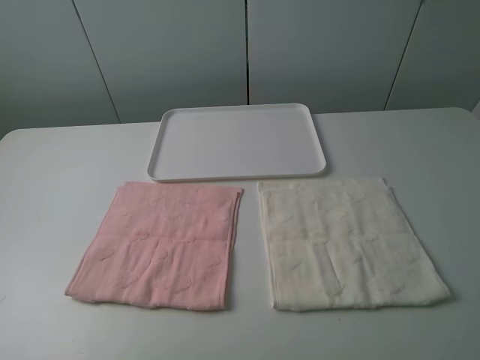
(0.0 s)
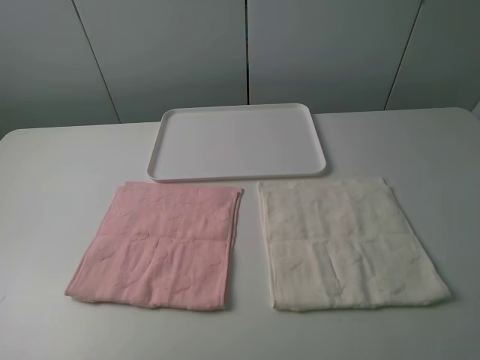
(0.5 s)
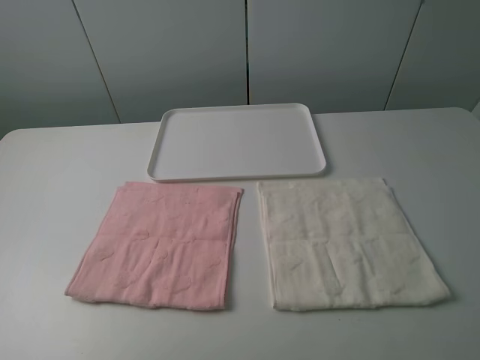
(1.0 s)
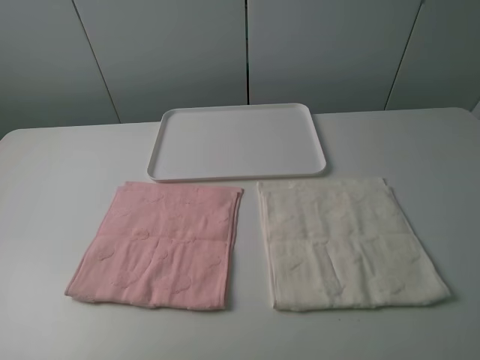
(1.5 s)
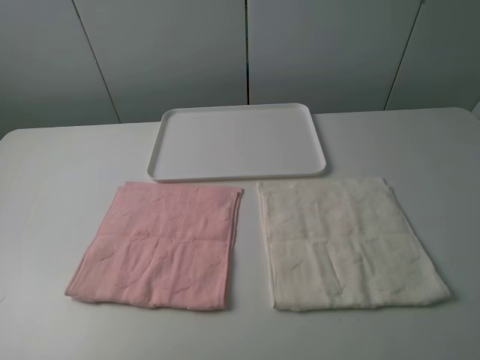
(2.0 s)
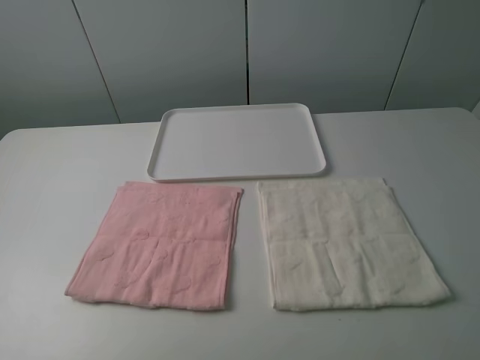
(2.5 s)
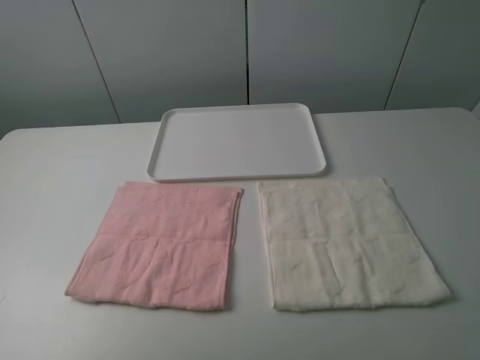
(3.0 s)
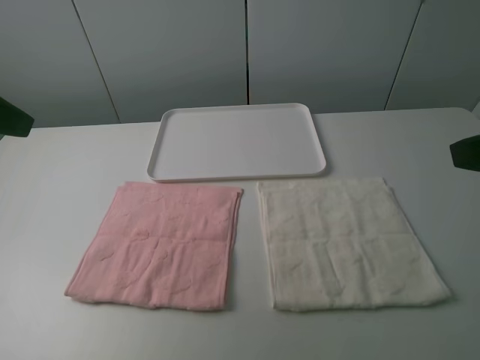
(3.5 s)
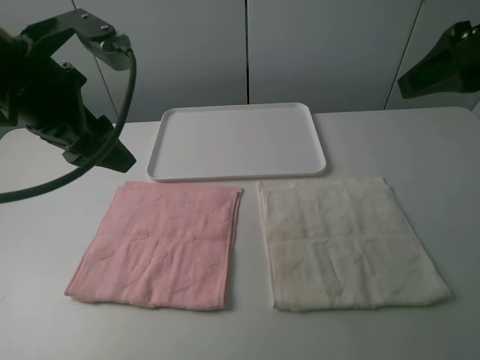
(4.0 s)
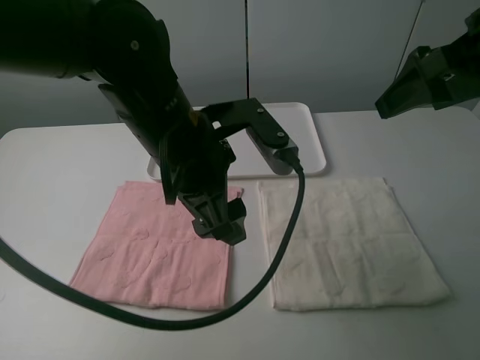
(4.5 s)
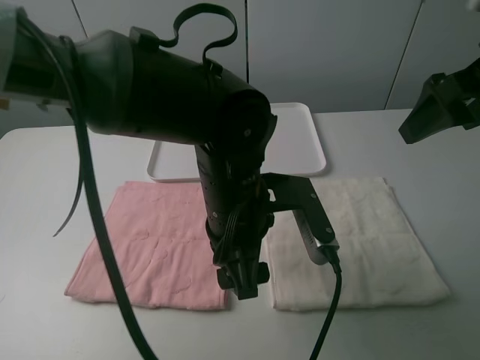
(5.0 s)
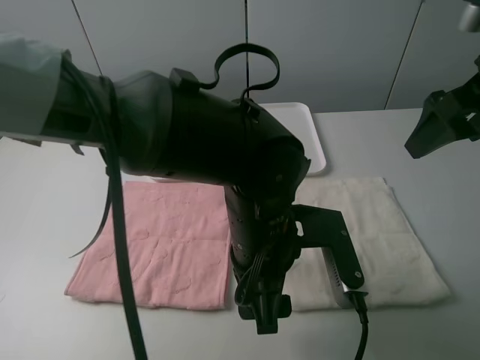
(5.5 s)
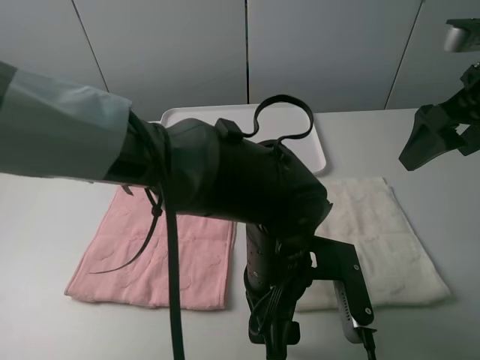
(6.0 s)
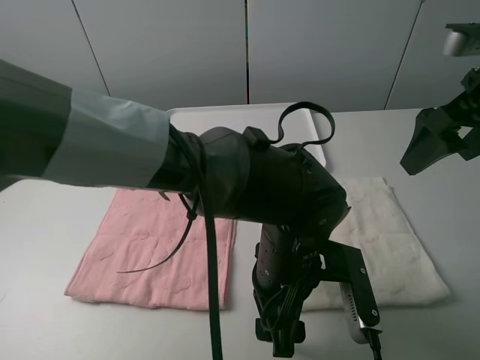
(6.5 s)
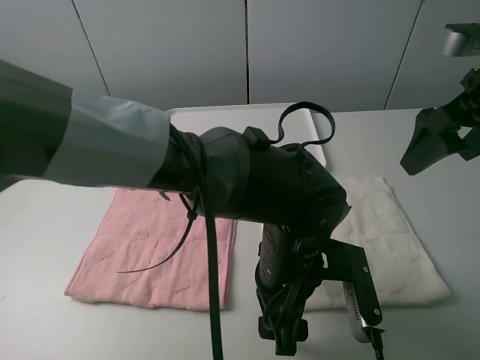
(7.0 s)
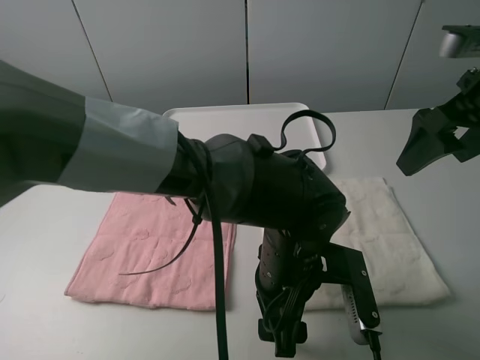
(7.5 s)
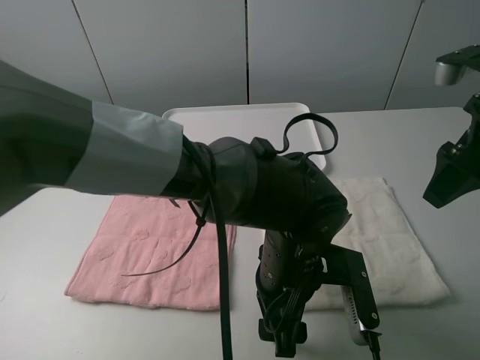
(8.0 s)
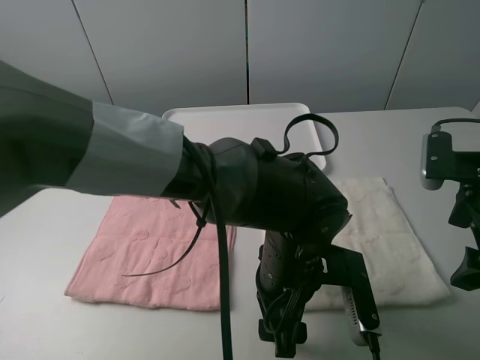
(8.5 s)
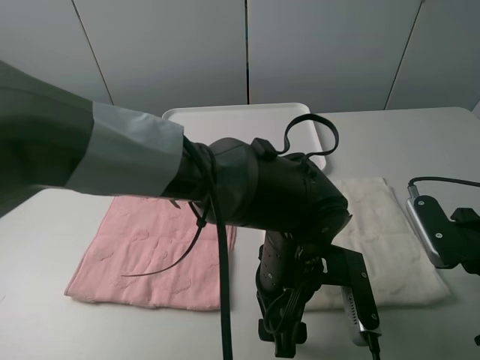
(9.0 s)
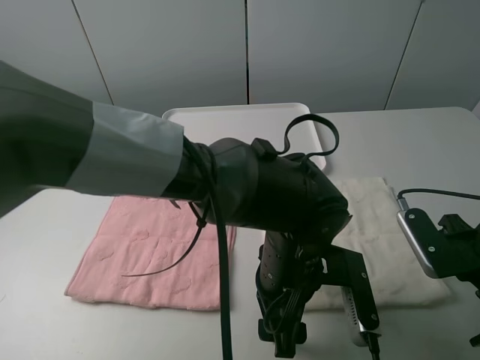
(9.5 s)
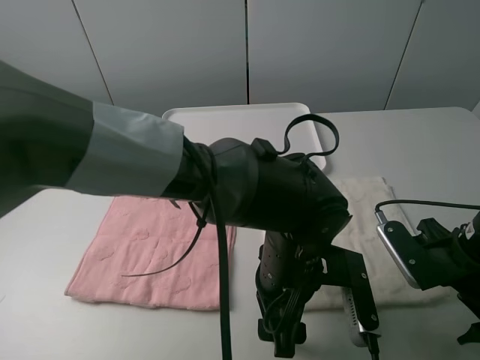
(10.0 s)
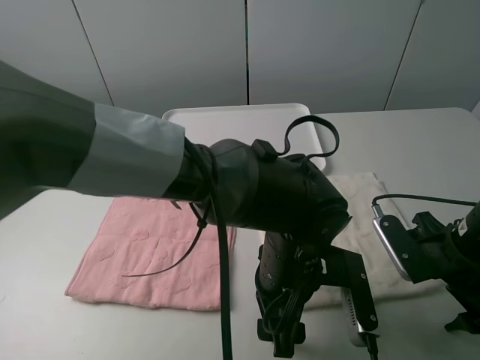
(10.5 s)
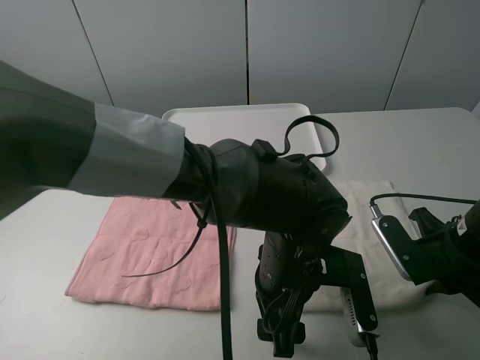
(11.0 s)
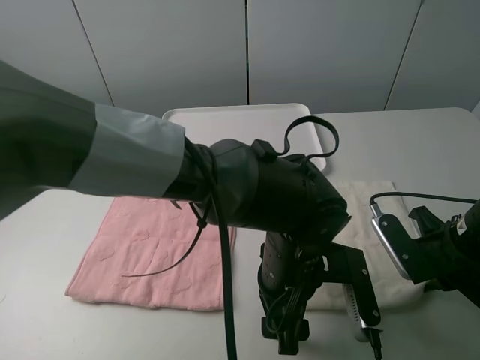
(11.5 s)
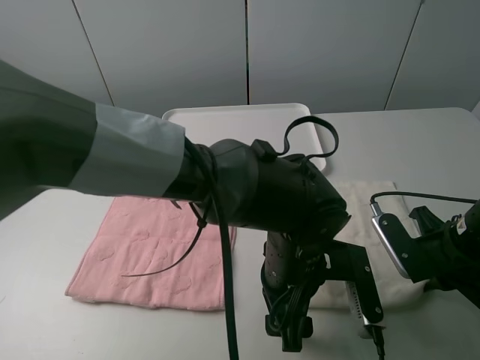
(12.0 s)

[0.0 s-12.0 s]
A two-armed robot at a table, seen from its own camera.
Task of the whole recording: fold one of the towels by two grippers and place it on the tray,then fold another towel by two grippers and place it on the folded towel.
0.0 to 2.0 s: The two grippers keep their place.
2.0 to 4.0 s: The left gripper shifts approximately 30 cm forward and to the right. Meanwhile the right gripper goes some 20 cm forward.
4.0 to 6.0 s: The right gripper is displaced downward by roughly 5 cm. The left gripper moves to the right and downward, about 30 cm.
8.0 to 10.0 s: The right gripper is displaced downward and backward by roughly 15 cm.
10.0 to 12.0 s: The right gripper closes up.

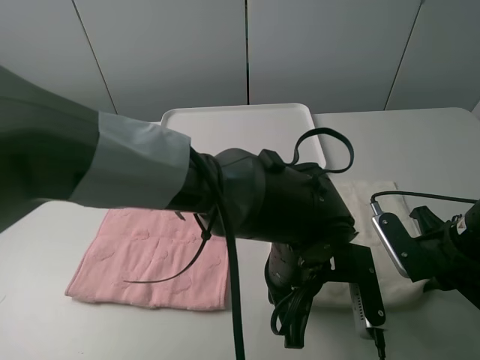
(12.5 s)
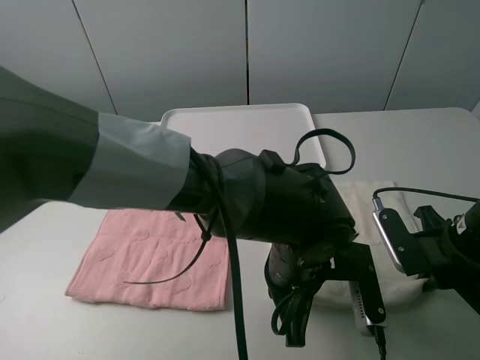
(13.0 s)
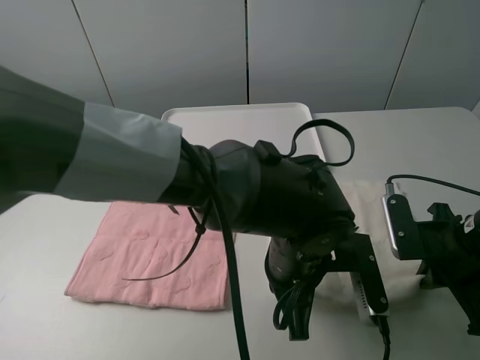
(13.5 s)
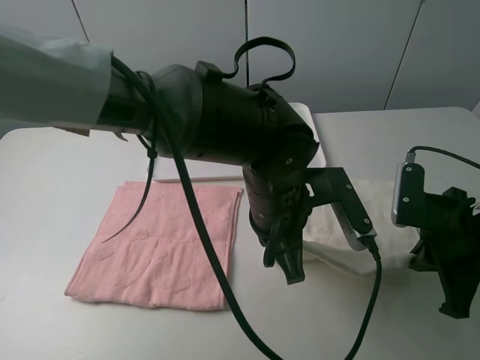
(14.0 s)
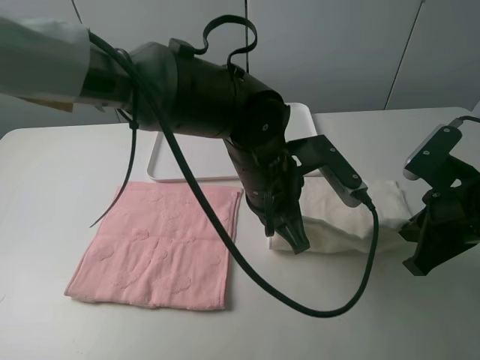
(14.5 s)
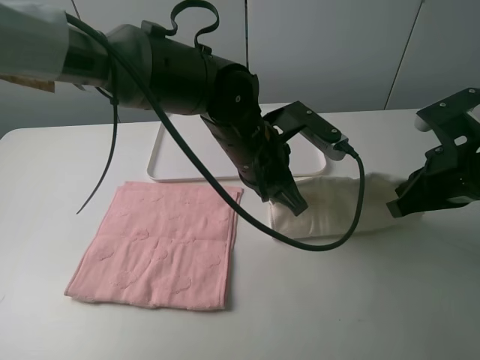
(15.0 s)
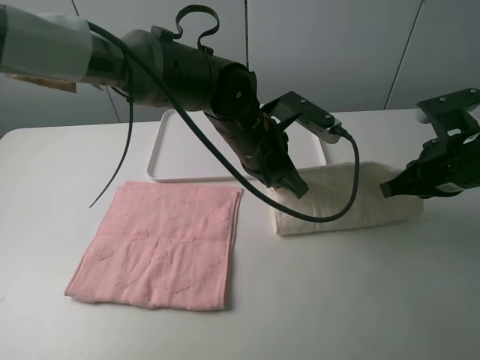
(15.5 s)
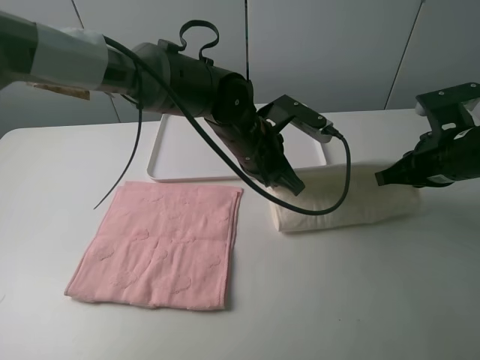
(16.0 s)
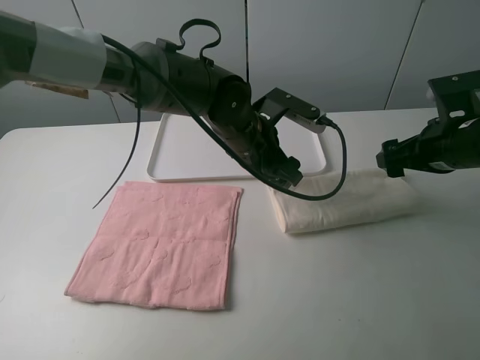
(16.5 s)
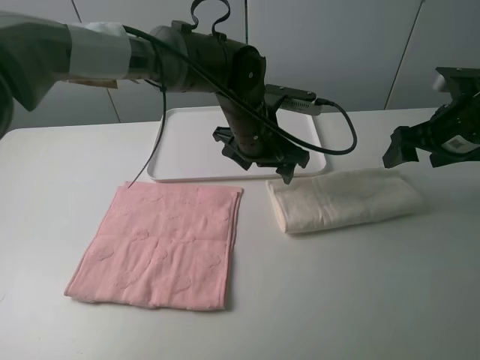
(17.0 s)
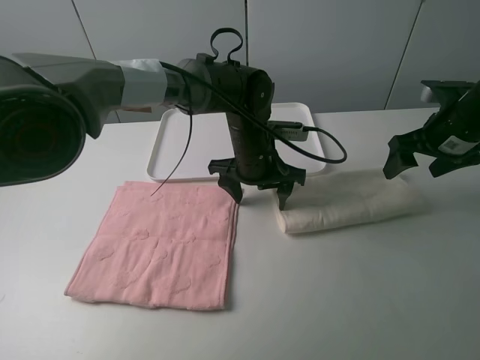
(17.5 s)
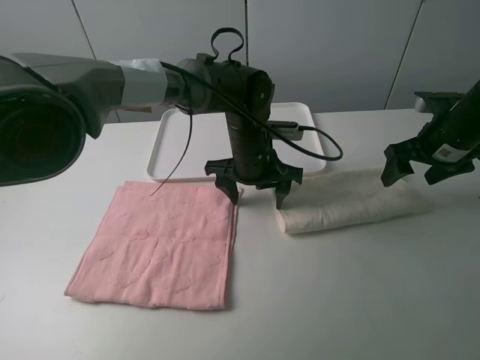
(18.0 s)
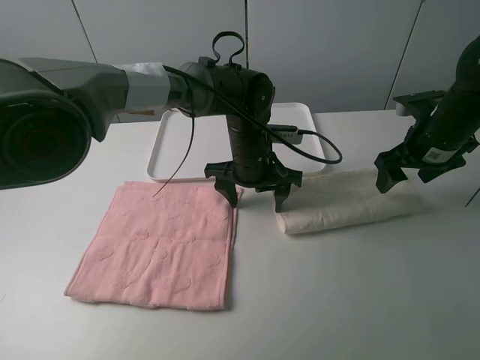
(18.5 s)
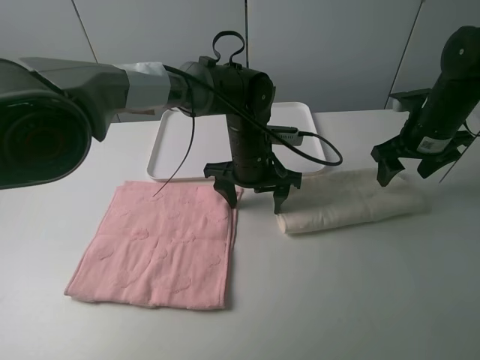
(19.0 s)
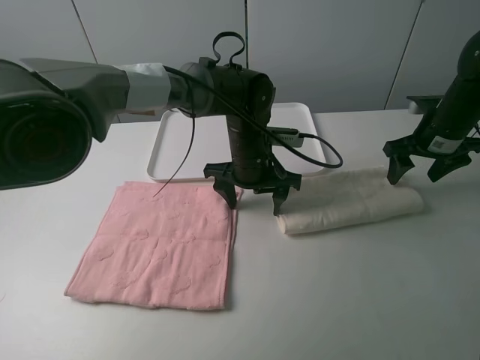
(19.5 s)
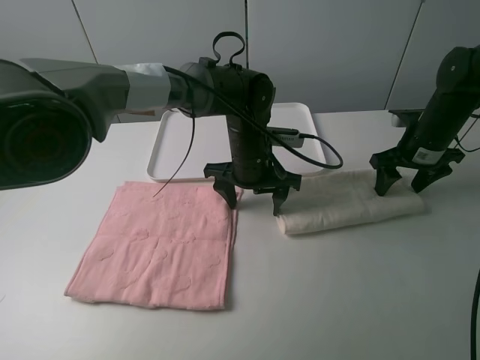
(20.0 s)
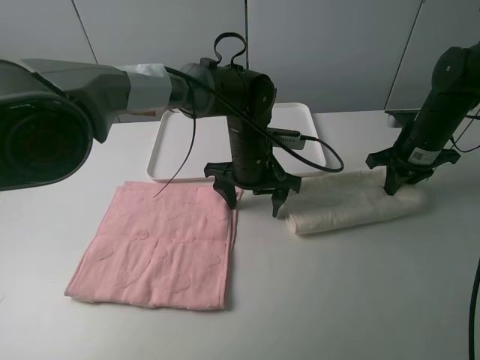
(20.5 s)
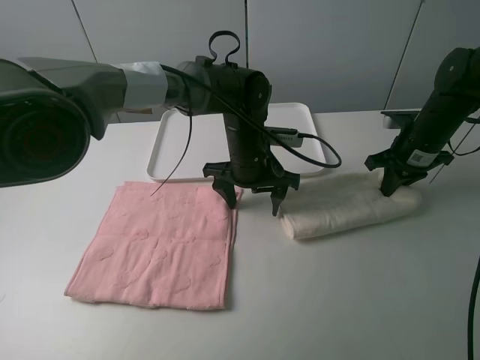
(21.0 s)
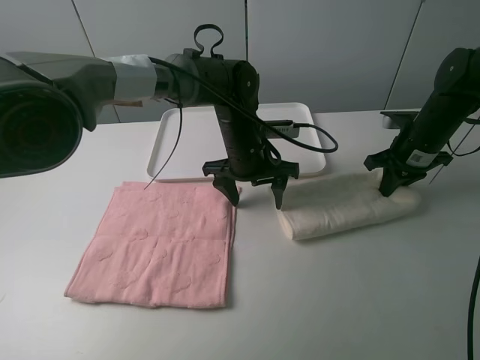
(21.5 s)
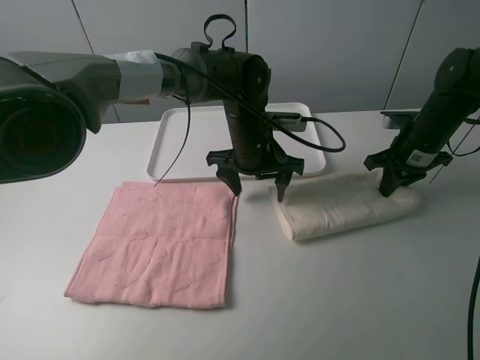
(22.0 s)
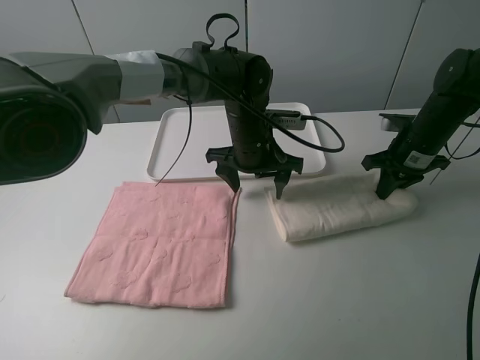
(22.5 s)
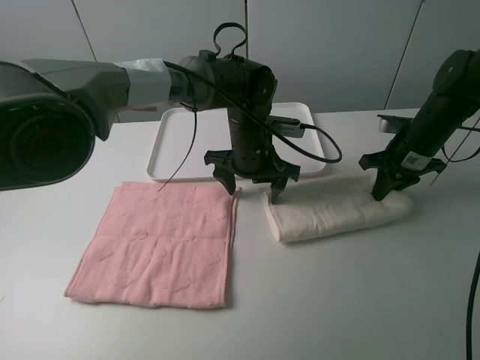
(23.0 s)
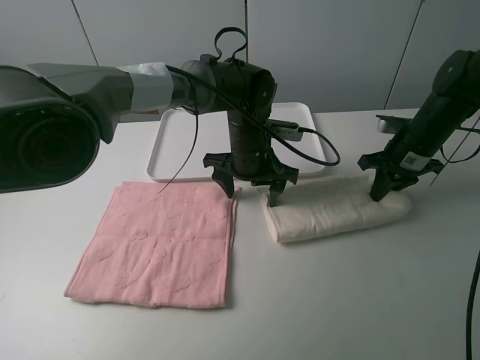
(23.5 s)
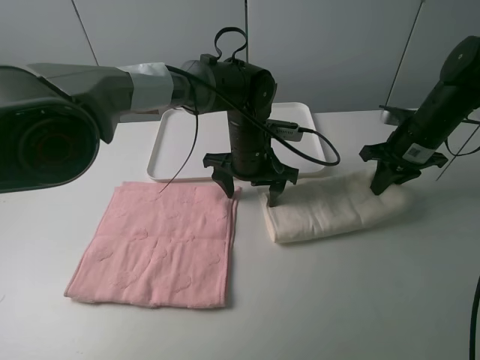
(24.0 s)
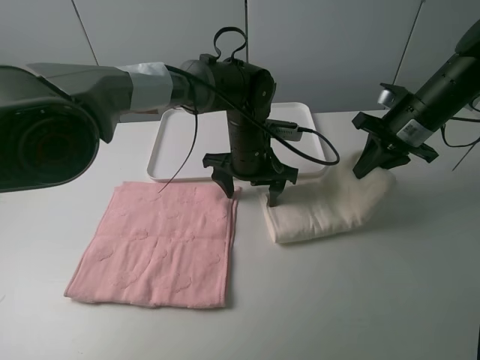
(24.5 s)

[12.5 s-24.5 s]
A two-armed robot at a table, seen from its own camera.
Task of the whole recording: fold one of the towels by two grippers and place it on the tray,then fold another towel by two grippers and place it on the folded towel.
Step, 13.0 to 16.0 s: Fold the white towel upwards with the left gripper.
Step, 17.0 to 18.5 s: Press the white towel with the left gripper.
Step, 19.0 to 20.5 s: Grasp the white towel with the right gripper.
12.5 to 14.5 s: The right gripper shifts about 5 cm upward. The left gripper moves forward and upward, about 10 cm.
14.5 to 16.5 s: Both grippers move forward, about 10 cm. The right gripper opens up; the left gripper opens its fingers.
16.5 to 18.5 s: The right gripper shifts about 5 cm forward.
18.5 to 20.5 s: The right gripper changes place by approximately 5 cm, and closes up.
20.5 to 22.5 s: The grippers move only a little.
22.5 to 24.5 s: The right gripper shifts about 5 cm upward.

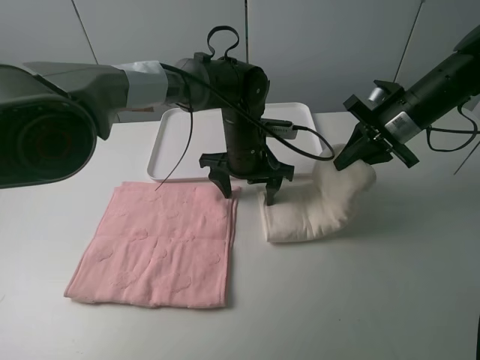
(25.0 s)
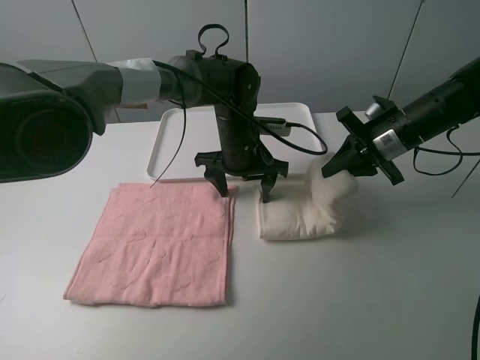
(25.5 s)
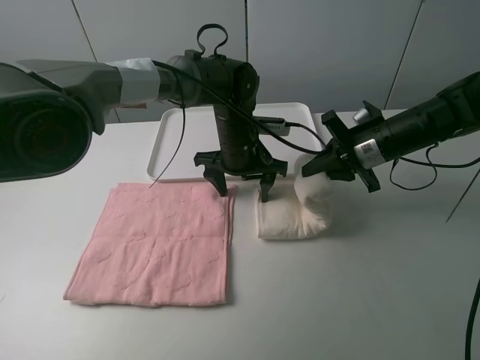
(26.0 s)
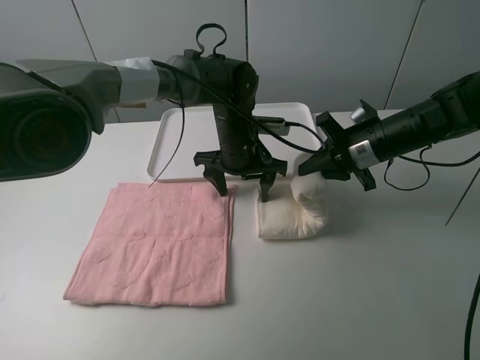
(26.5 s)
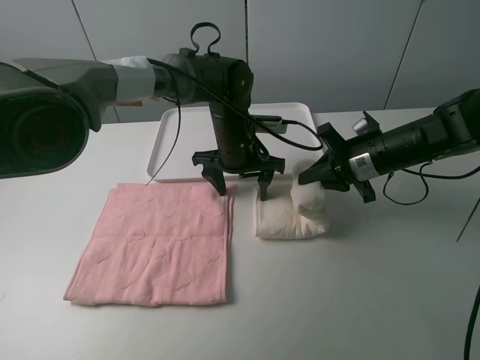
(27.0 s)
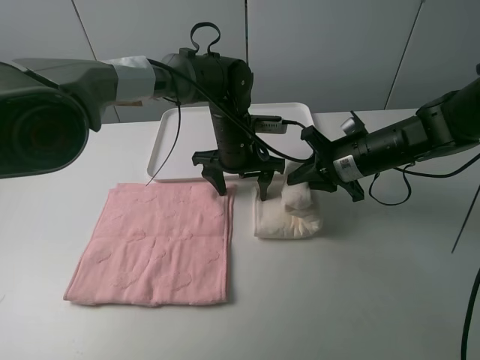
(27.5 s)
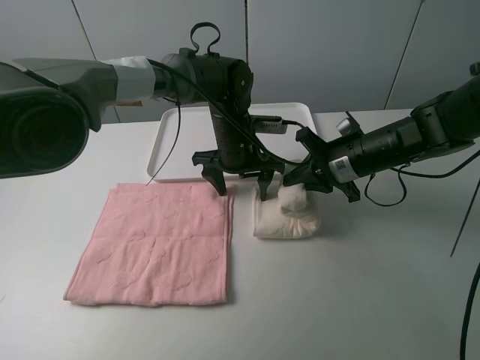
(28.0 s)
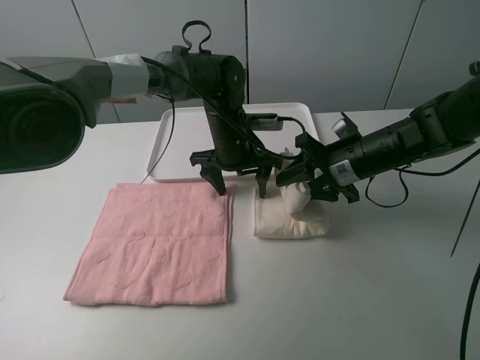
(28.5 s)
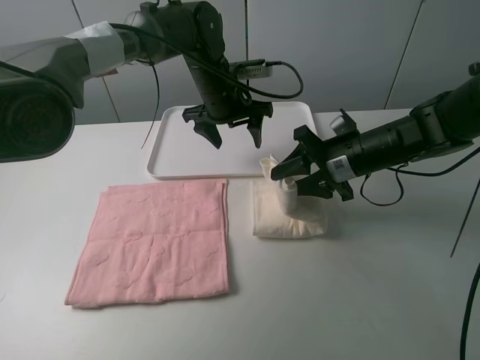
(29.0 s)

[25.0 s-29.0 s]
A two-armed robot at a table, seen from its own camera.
Task of the whole recording: fold one of the towels by two grippers and place it on the tray,then fold another towel by two grippers and place it on the folded towel.
25.0 to 27.0 s: The right gripper ends up roughly 5 cm from where it was.
27.0 to 29.0 s: The left gripper moves upward and forward, roughly 10 cm. Meanwhile the right gripper opens up.
